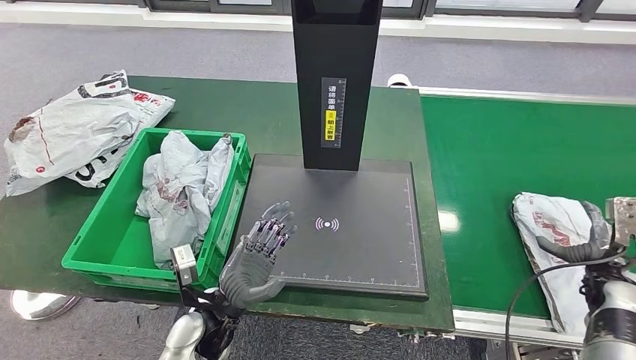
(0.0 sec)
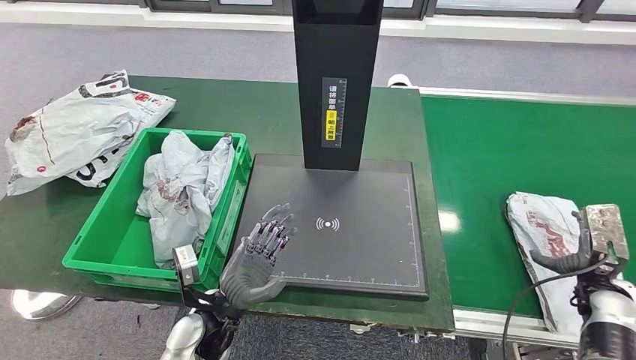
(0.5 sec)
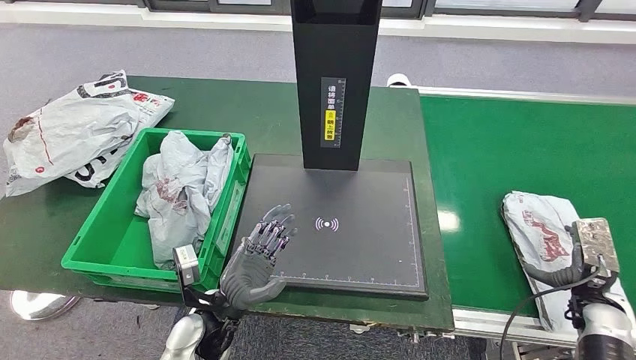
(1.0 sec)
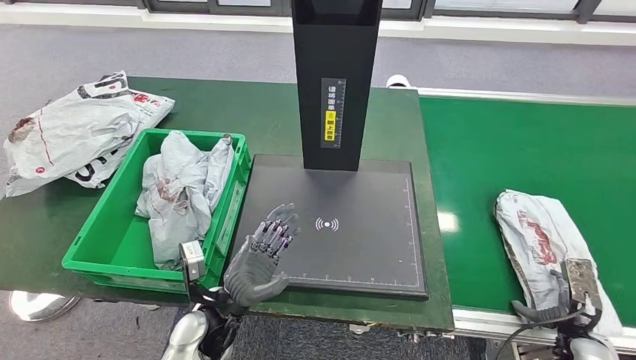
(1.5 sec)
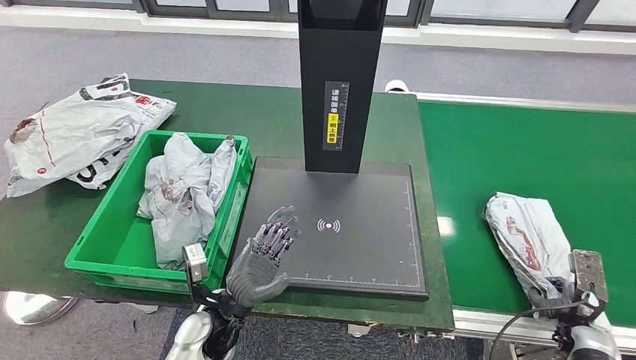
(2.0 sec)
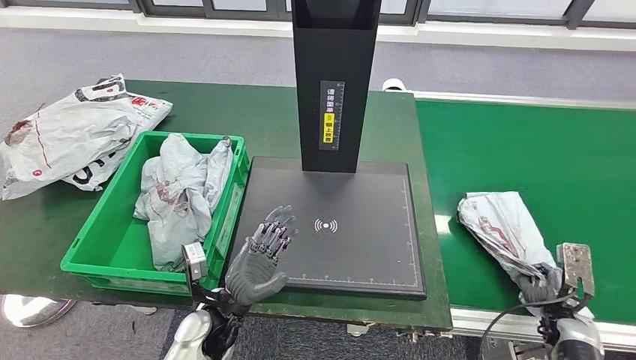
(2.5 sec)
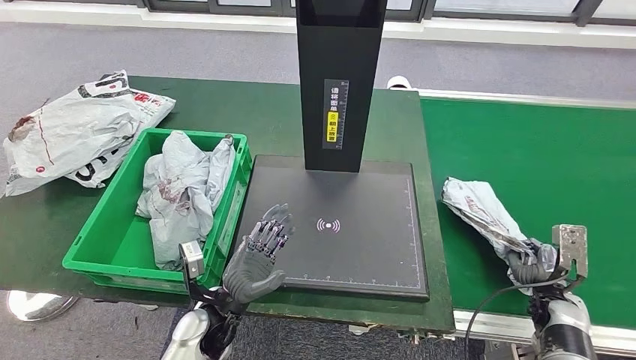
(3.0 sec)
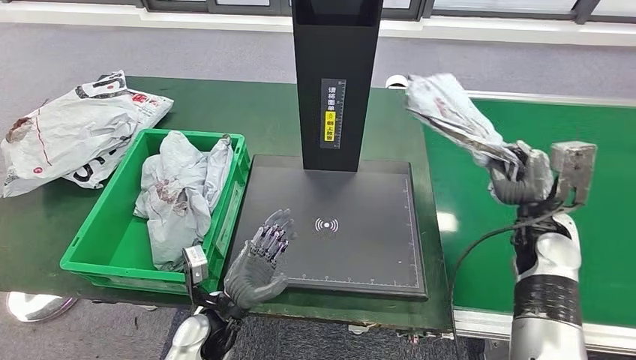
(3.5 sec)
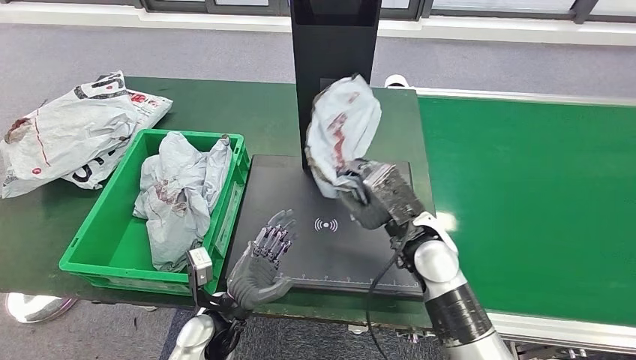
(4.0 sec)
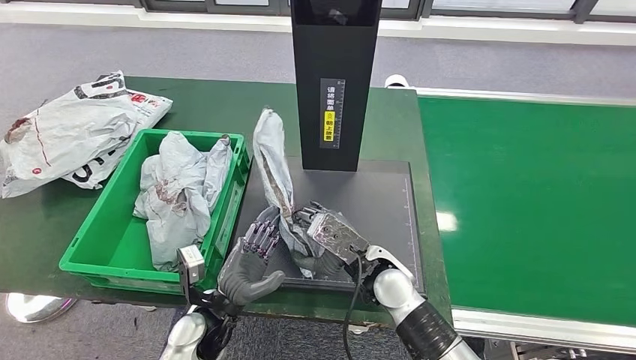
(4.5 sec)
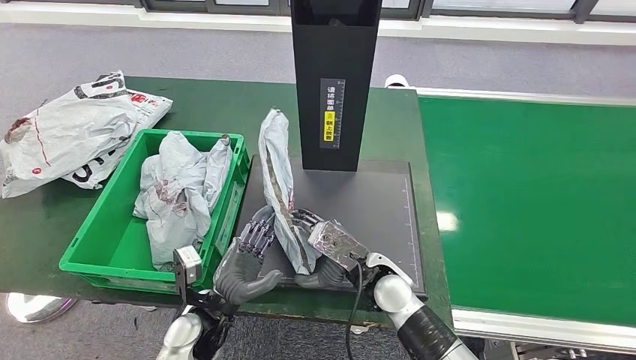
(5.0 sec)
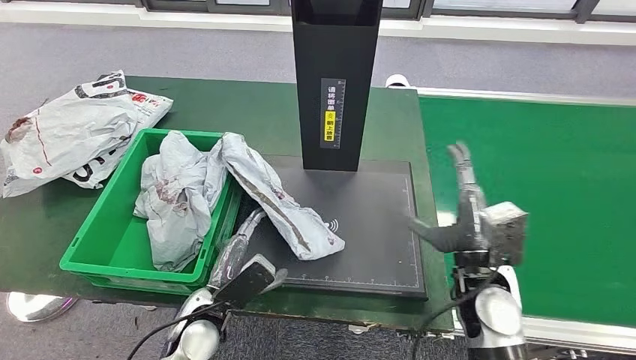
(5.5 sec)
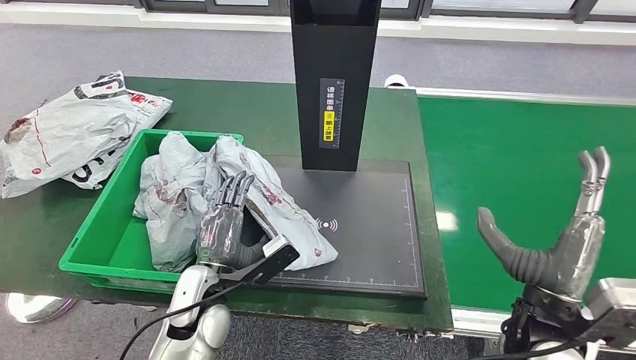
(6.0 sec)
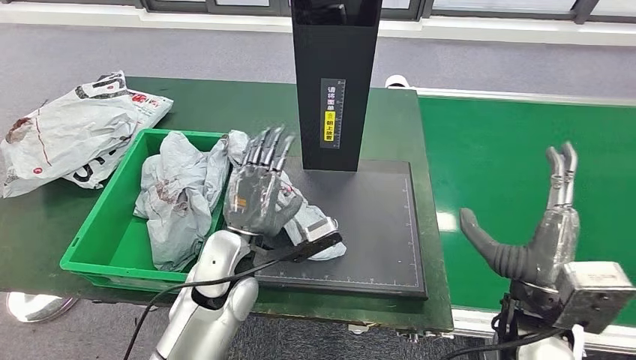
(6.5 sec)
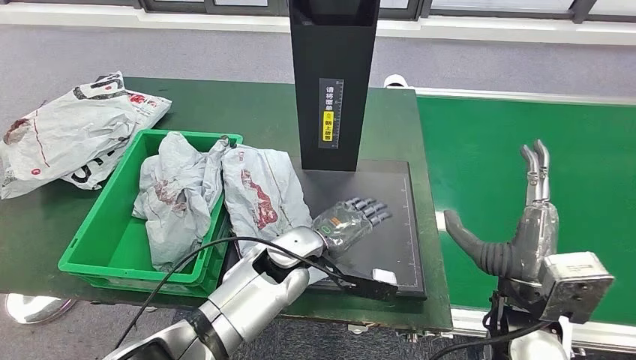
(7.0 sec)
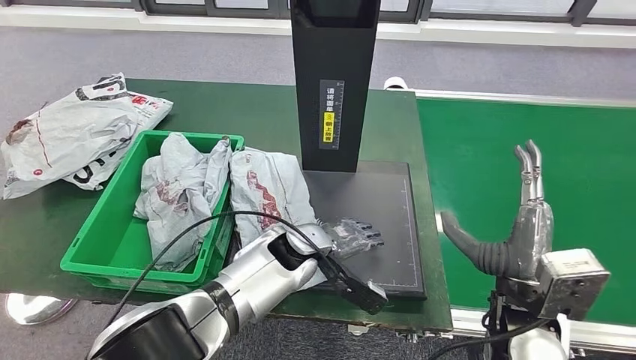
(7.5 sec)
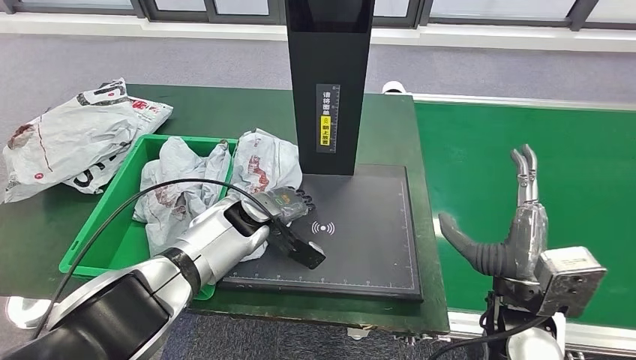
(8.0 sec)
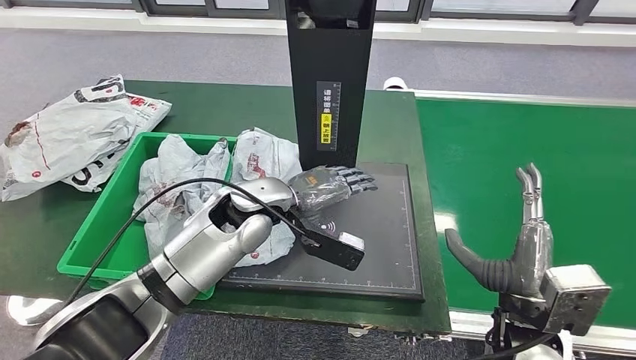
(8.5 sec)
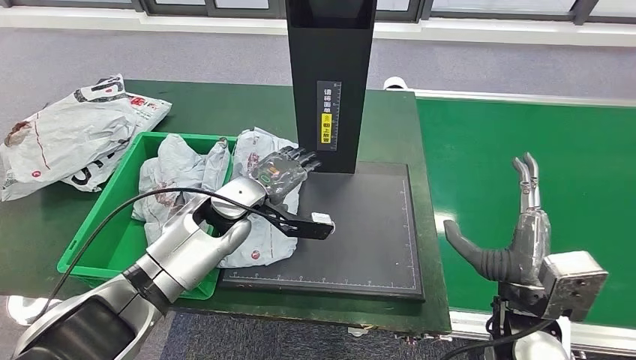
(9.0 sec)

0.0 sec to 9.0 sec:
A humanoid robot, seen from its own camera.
Step, 0.0 sec to 3.0 sec: Pick up the parcel from the conveyor belt.
Step, 3.5 sec to 5.0 sec: Place the parcel onto the inbound machine.
4.5 sec to 7.0 sec: The left hand travels to the right, forward and upward by about 20 cm. The right hand travels to the right and upward by some 20 cm.

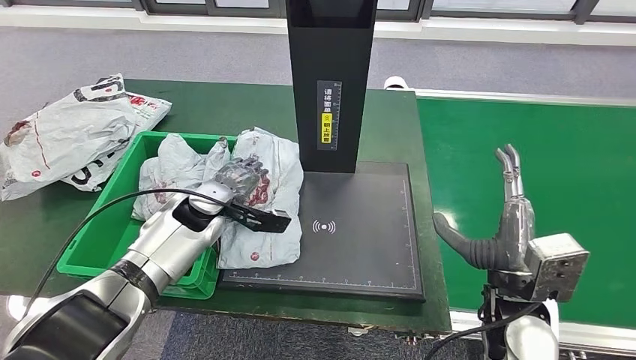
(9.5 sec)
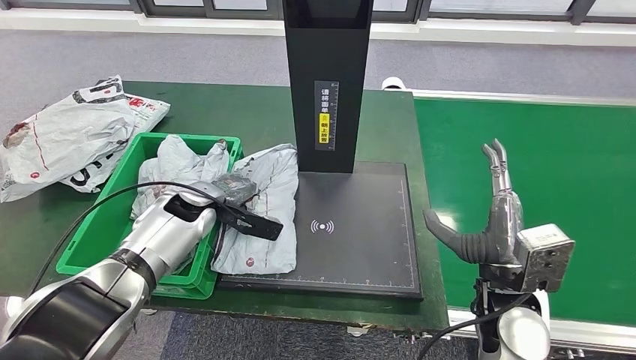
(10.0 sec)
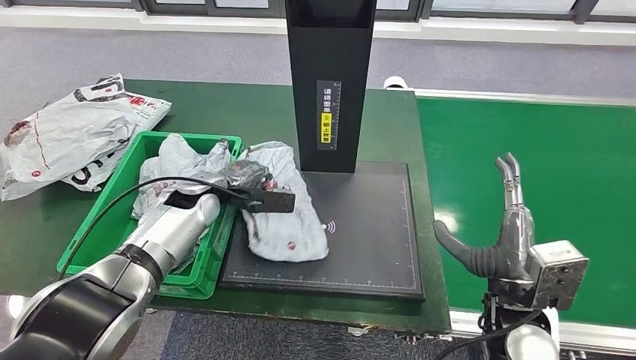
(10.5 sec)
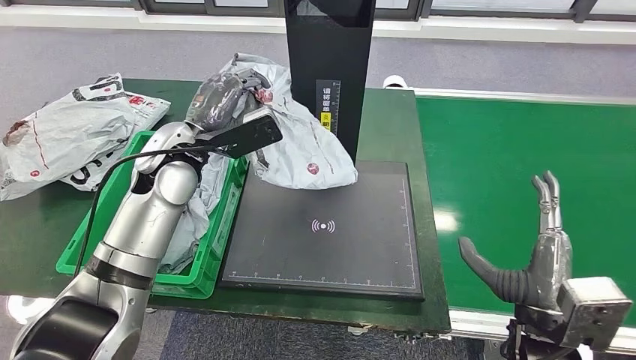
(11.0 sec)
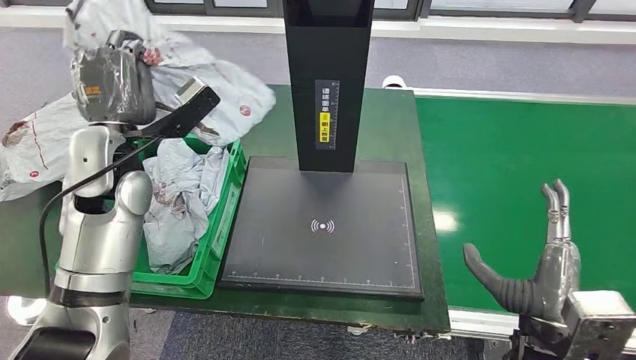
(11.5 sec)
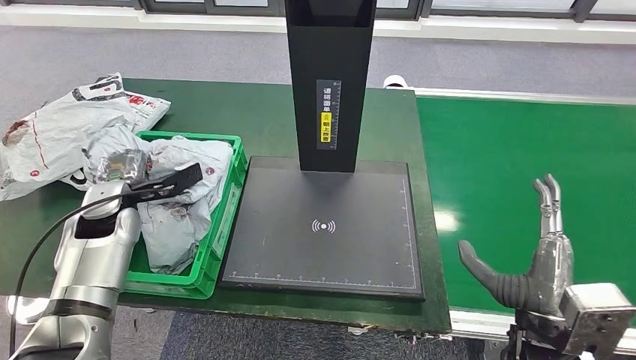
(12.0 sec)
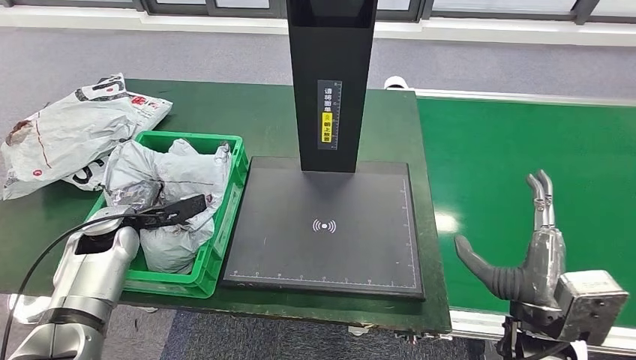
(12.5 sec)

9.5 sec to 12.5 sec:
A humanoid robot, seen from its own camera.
Step, 11.0 sec to 12.5 sec: Place the parcel into the delivery box.
